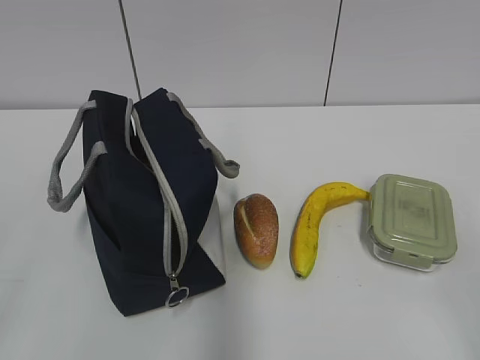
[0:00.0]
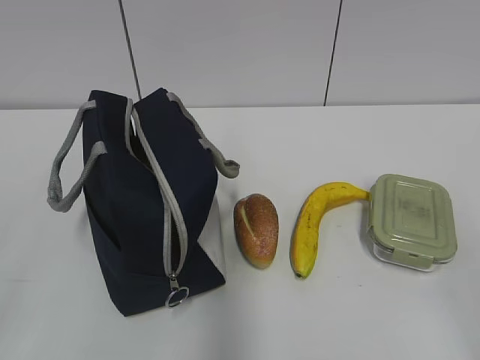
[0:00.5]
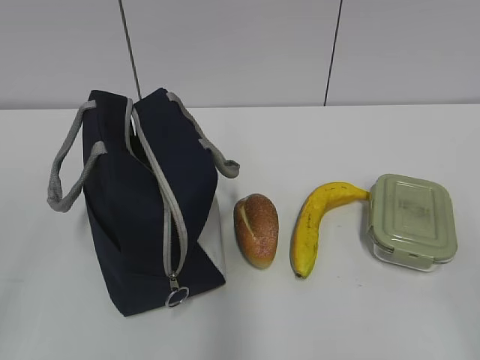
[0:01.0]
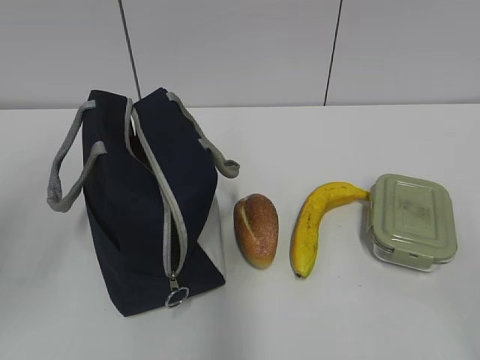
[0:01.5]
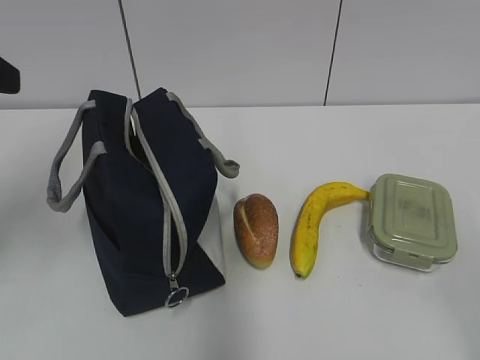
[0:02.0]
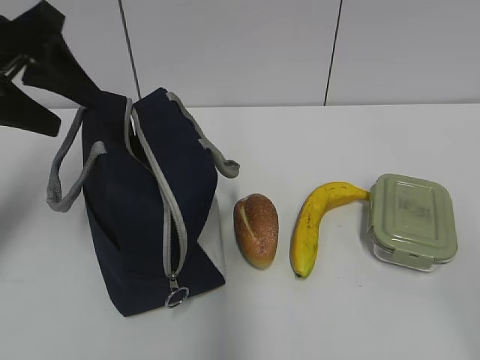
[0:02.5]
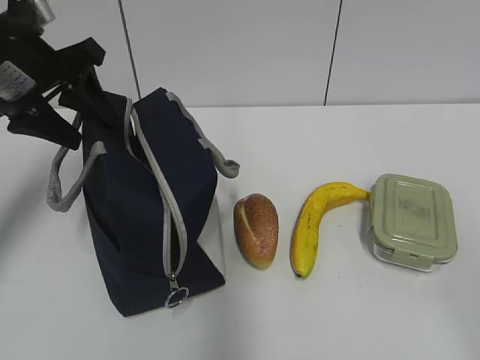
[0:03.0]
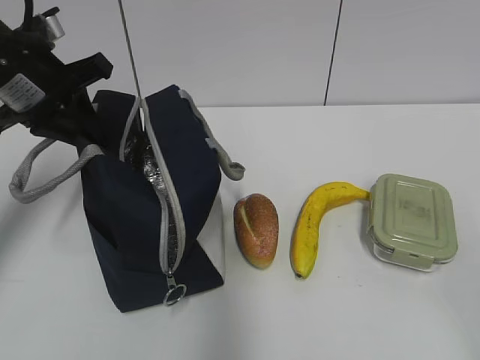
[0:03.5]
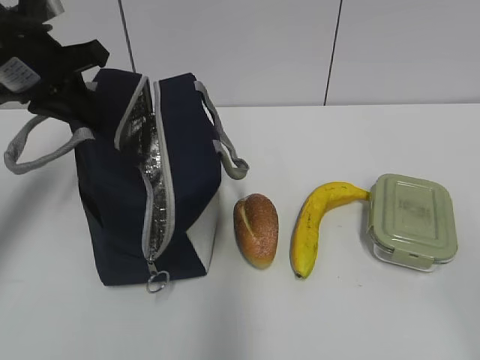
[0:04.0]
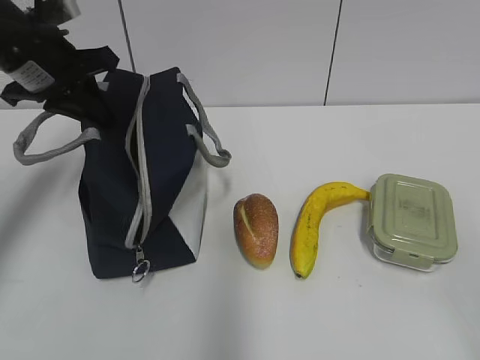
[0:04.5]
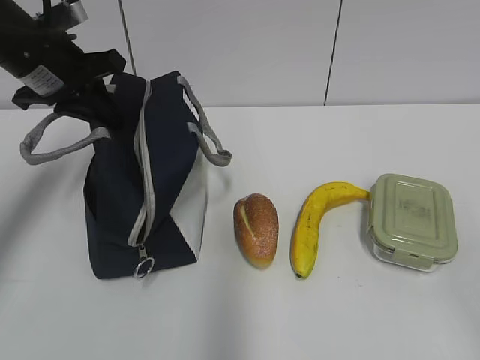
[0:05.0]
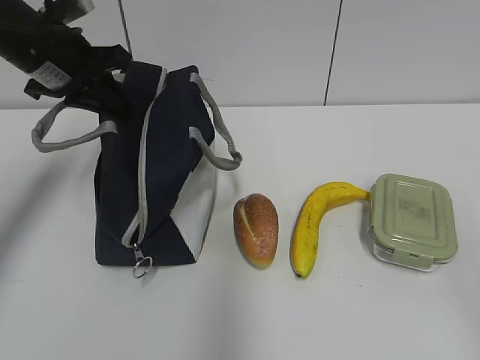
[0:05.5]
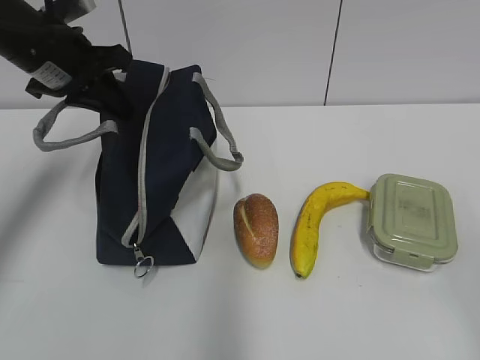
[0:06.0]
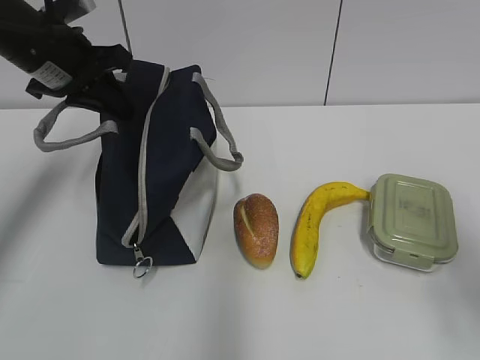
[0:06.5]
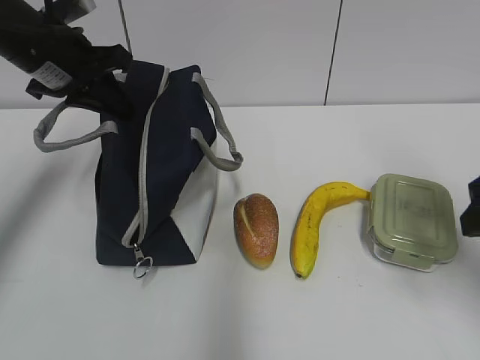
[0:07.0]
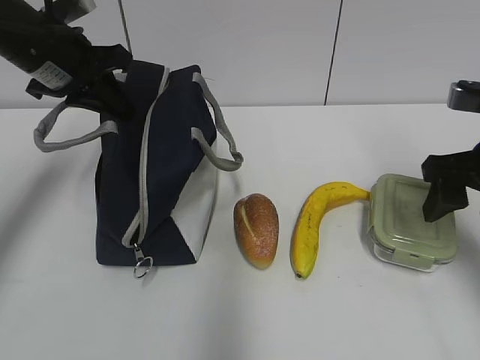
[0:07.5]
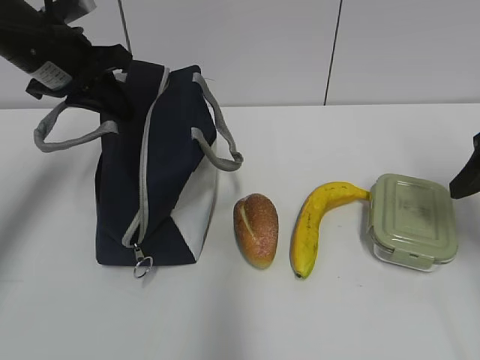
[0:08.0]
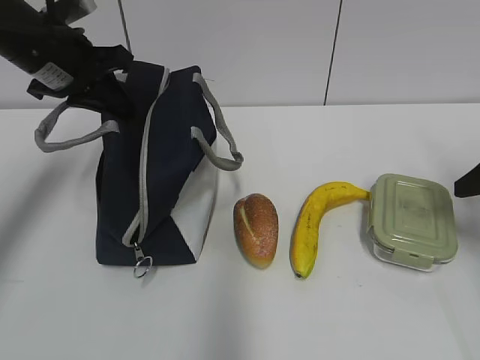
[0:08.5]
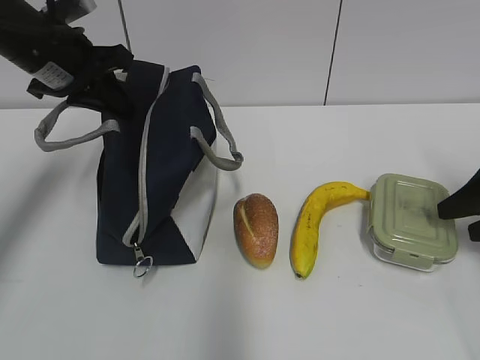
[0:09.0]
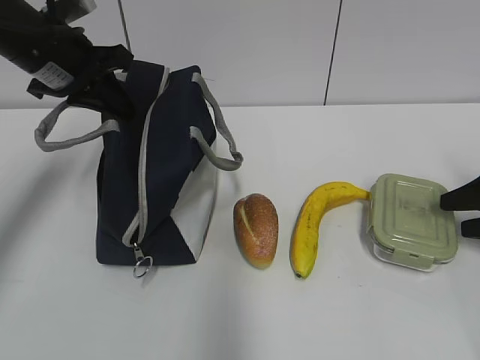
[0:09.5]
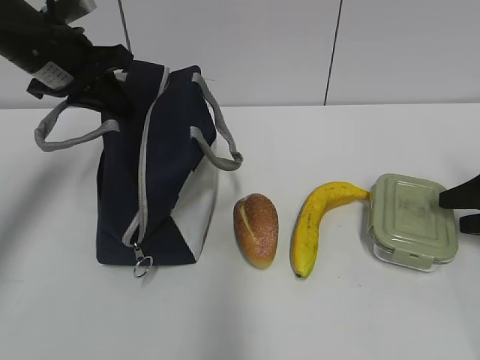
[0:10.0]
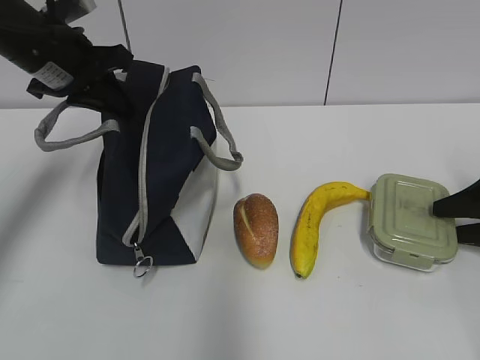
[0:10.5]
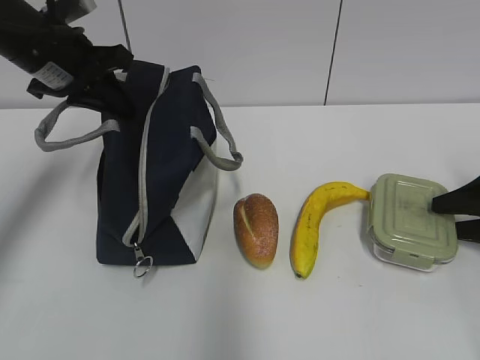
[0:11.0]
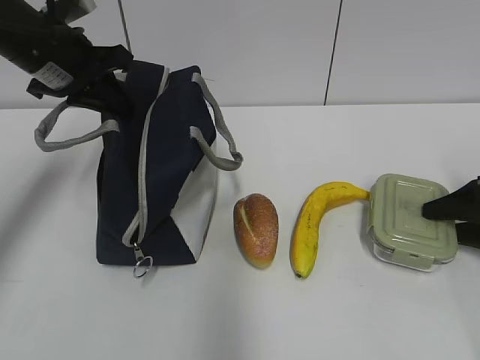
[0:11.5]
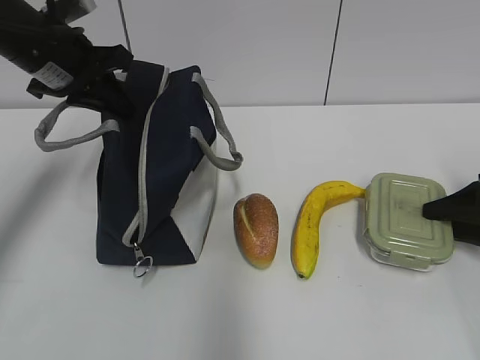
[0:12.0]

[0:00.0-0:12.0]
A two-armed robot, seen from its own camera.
2.0 to 4.0 s: The left gripper moves forward and downward, about 15 cm, and closes its fingers.
4.0 to 6.0 s: There are only small adjustments of the grippers.
6.0 to 8.0 s: The right gripper is displaced forward by roughly 25 cm.
8.0 to 10.0 s: The right gripper travels downward and to the right by some 10 cm.
10.0 to 12.0 s: The grippers move only a little.

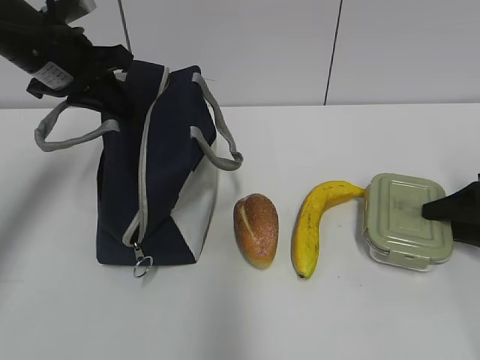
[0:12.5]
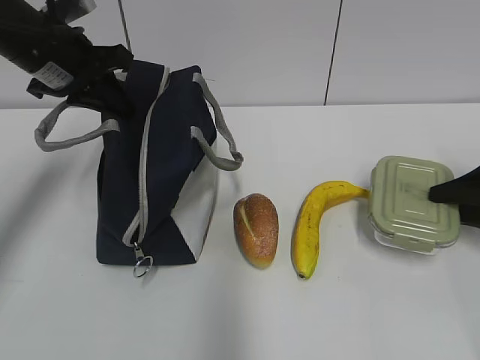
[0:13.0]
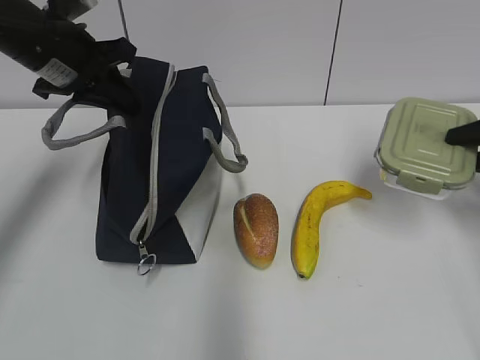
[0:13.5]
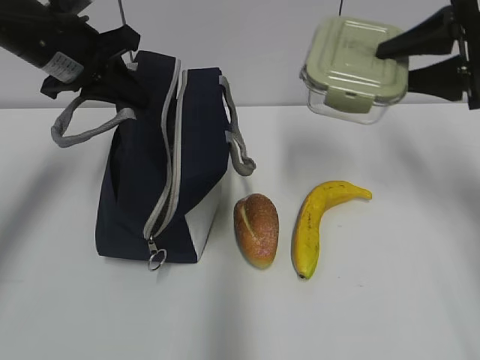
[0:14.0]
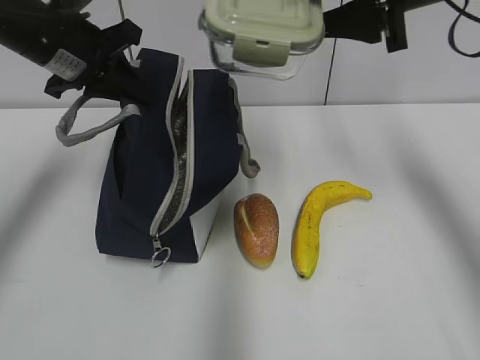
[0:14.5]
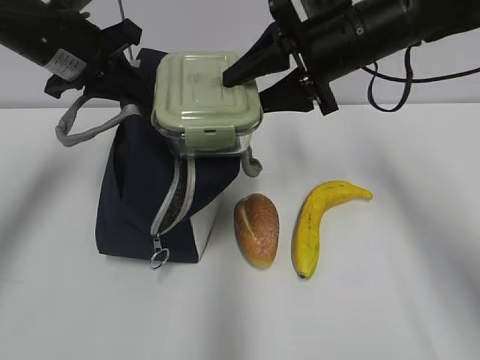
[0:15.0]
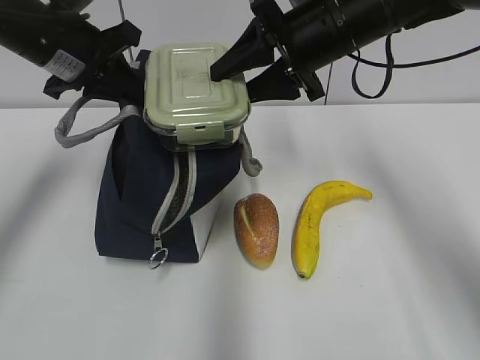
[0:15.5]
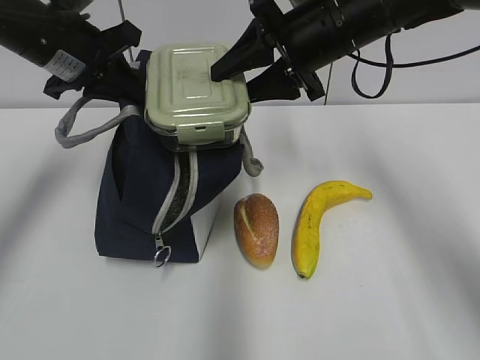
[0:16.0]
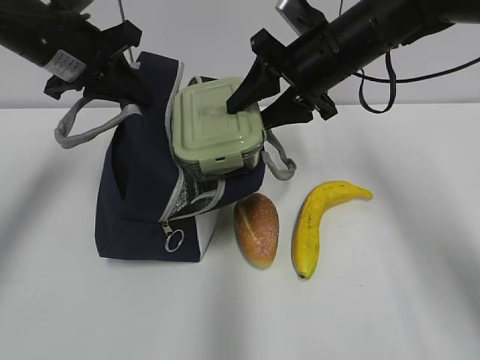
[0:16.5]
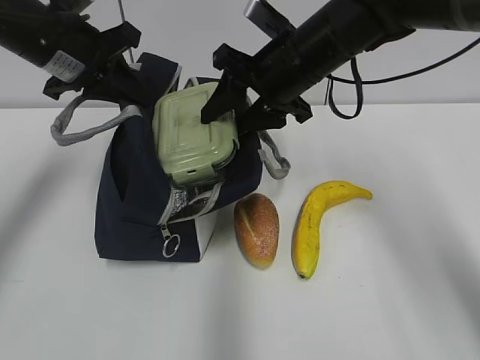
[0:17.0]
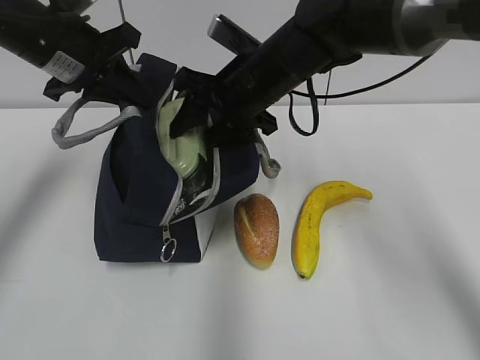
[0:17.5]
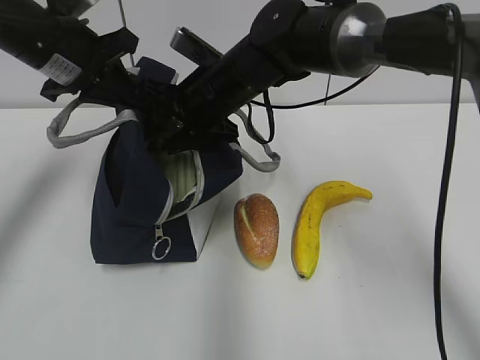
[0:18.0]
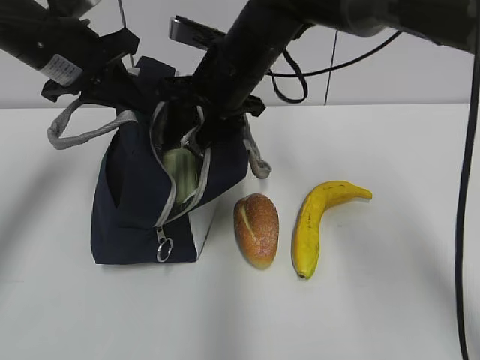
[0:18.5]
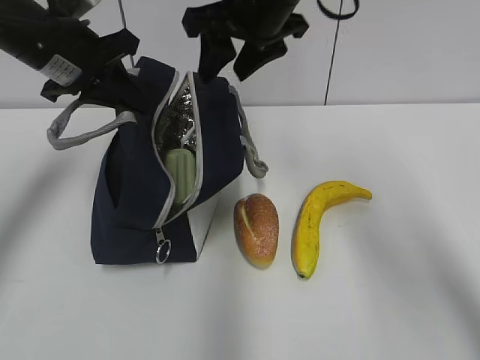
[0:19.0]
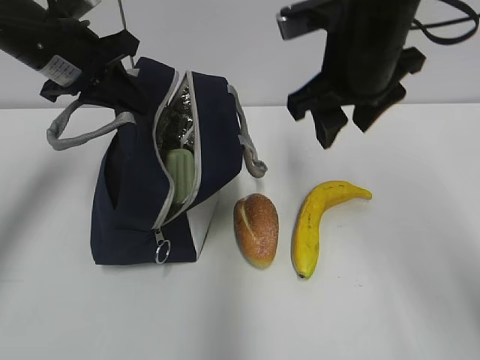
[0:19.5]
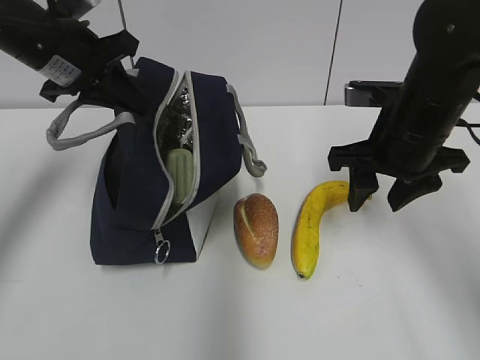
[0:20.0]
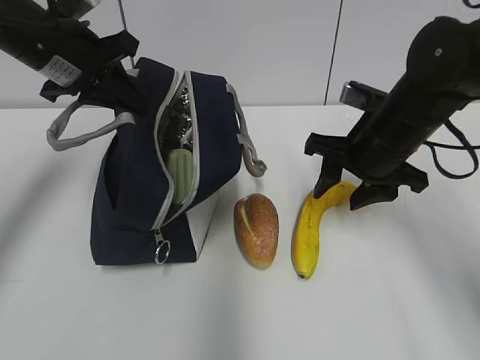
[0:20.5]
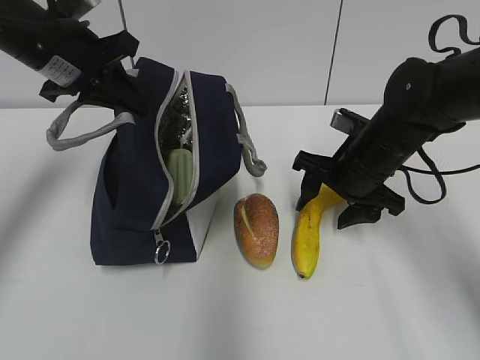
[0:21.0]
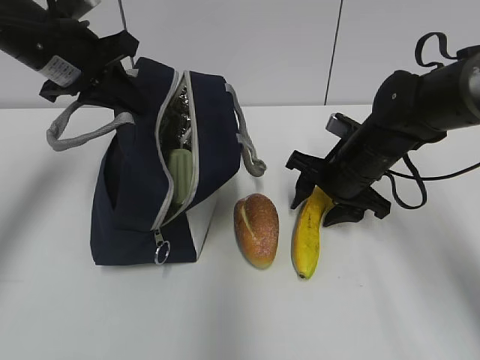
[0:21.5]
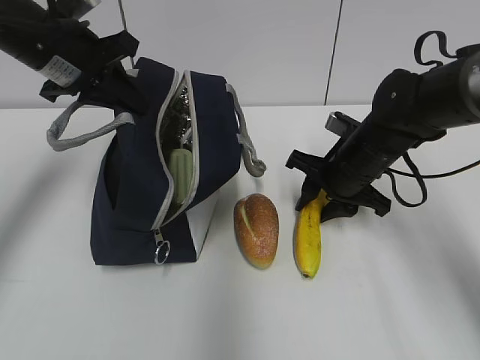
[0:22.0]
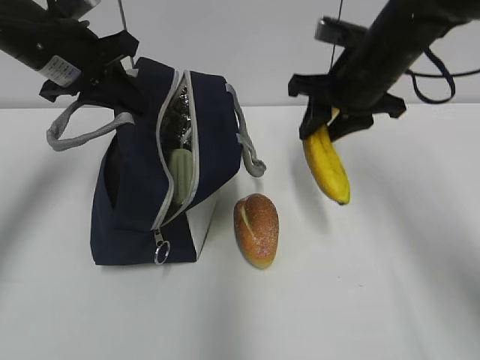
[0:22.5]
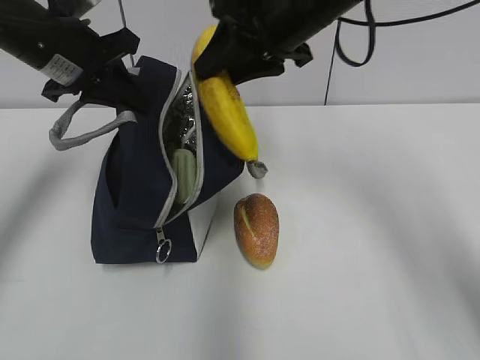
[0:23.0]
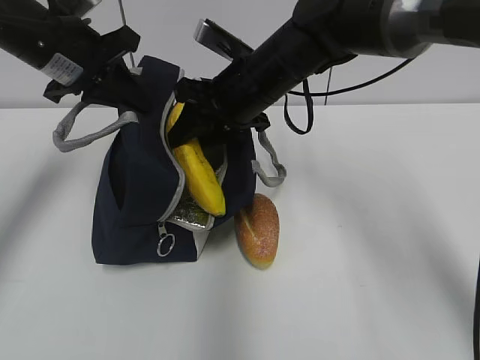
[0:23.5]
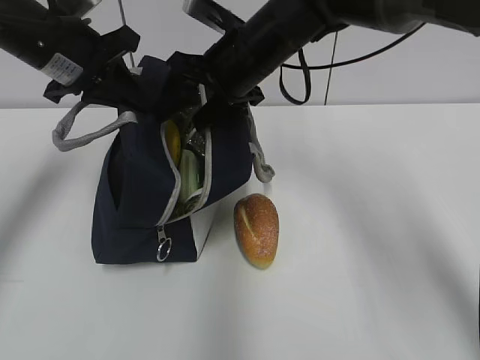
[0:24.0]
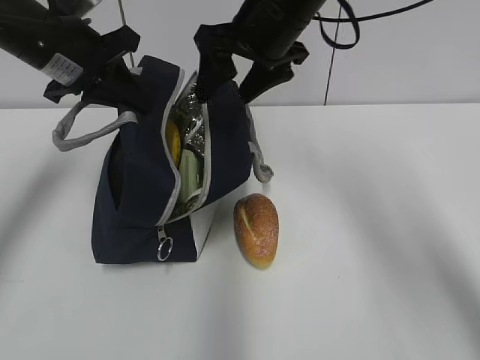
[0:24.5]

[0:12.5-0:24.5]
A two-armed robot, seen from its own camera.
Step, 16.5 to 18.5 s: Place it into the bag with your right hand.
Step, 19.0 to 21.5 s: Grab the banana with your right hand.
Step, 22.5 to 24.0 s: Place it into the bag with your right hand.
12.5 to 14.5 s: The right gripper shifts about 30 cm upward and to the left.
14.5 to 16.5 s: The right gripper moves downward, to the left and forward, roughly 10 cm.
16.5 to 18.5 s: The right gripper travels to the left by about 10 cm.
18.5 to 20.5 s: The right gripper travels to the right, backward and downward by approximately 15 cm.
20.5 to 22.5 s: The right gripper heads upward, covering some 5 cm.
22.5 to 24.5 s: The right gripper shifts some 10 cm to the left and upward, and opens up.

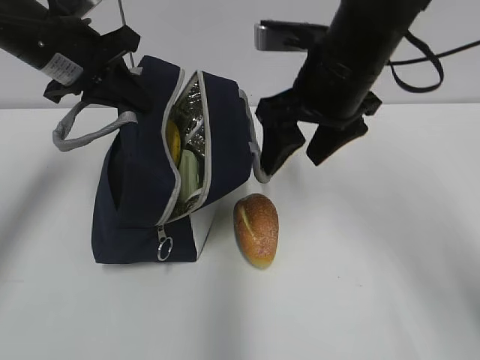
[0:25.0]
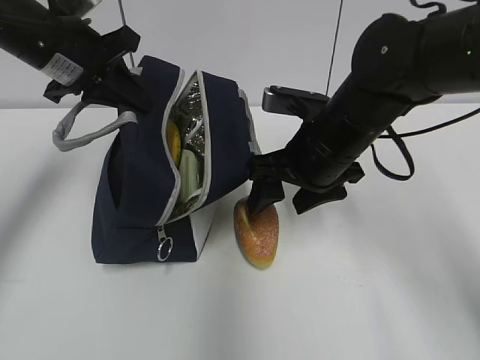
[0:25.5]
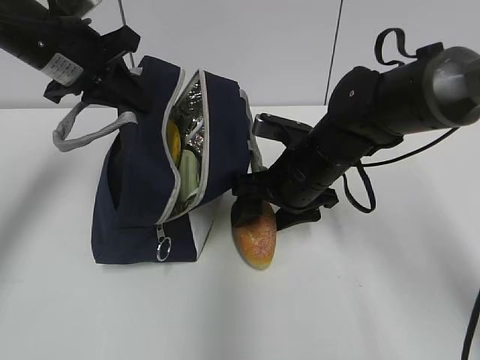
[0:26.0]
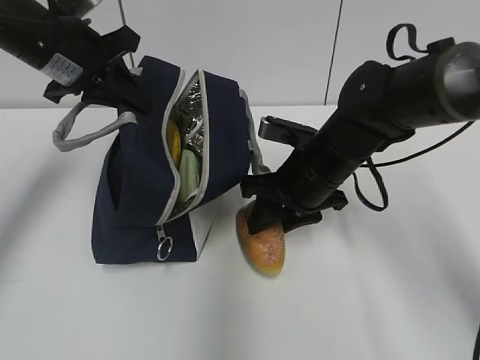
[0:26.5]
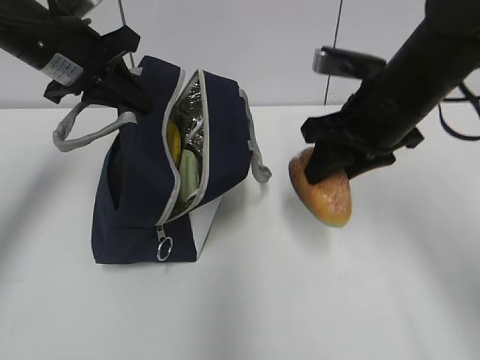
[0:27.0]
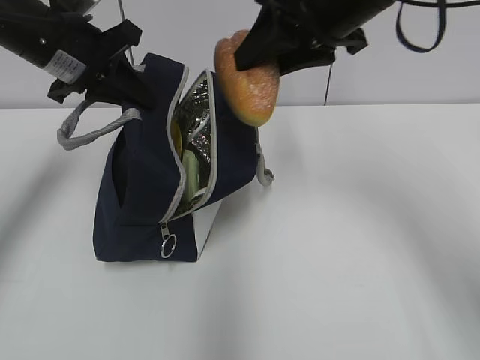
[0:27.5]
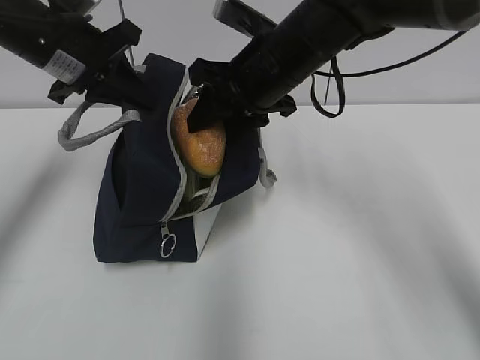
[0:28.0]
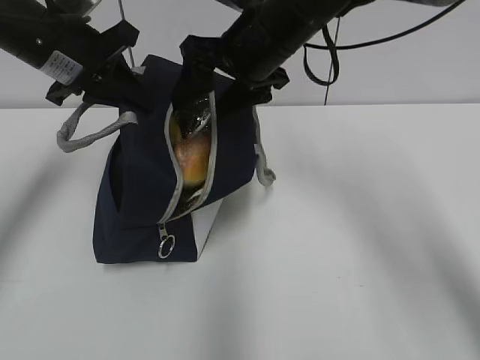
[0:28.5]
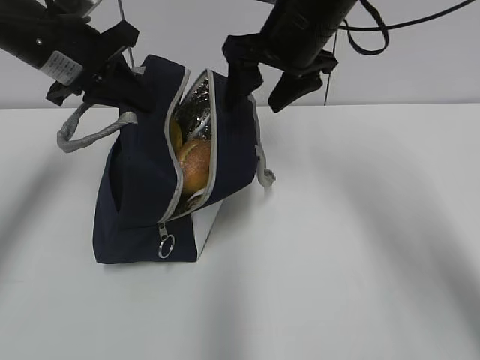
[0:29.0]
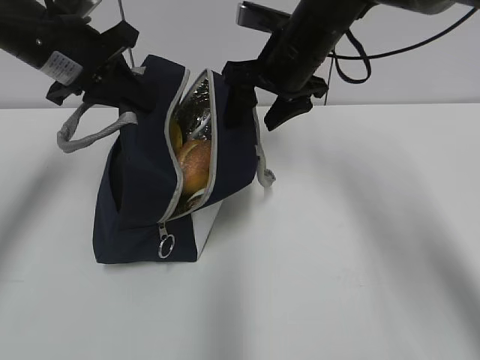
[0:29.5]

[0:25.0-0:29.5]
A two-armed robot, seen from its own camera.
25.0 to 27.0 s: The right gripper reaches about 15 cm downward, then returns, and closes.
27.0 to 29.5 s: The right gripper is displaced forward and to the left by some 10 cm, and opens.
